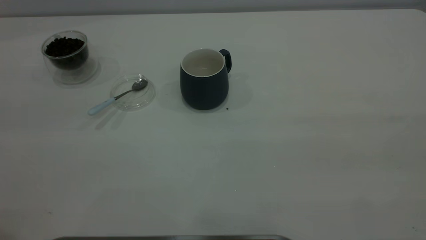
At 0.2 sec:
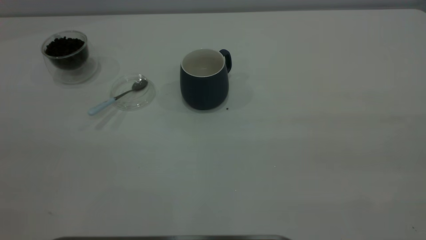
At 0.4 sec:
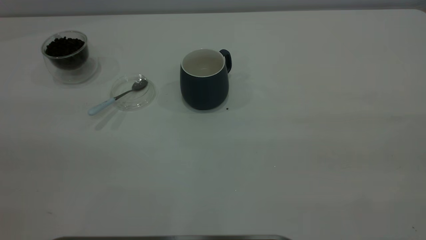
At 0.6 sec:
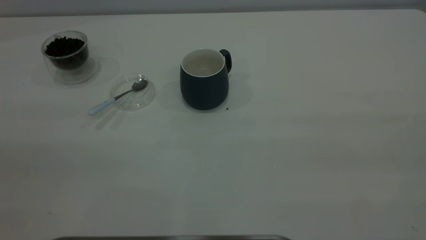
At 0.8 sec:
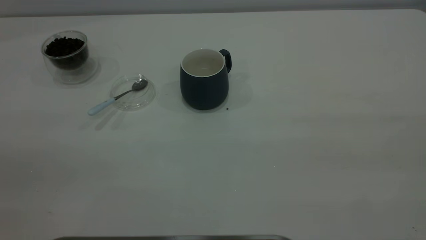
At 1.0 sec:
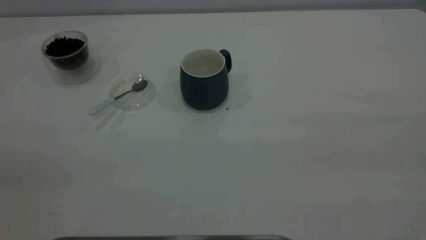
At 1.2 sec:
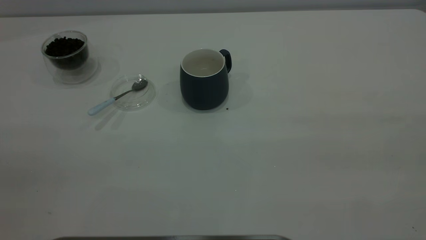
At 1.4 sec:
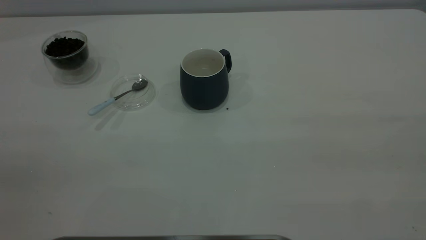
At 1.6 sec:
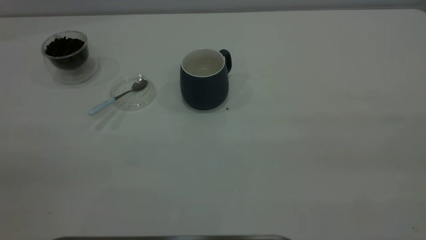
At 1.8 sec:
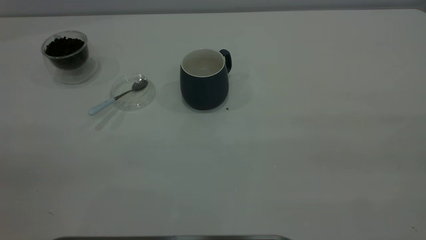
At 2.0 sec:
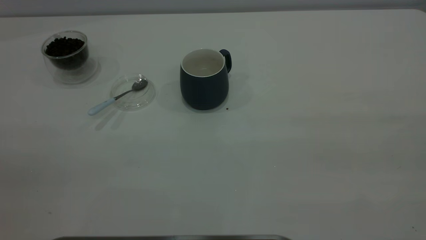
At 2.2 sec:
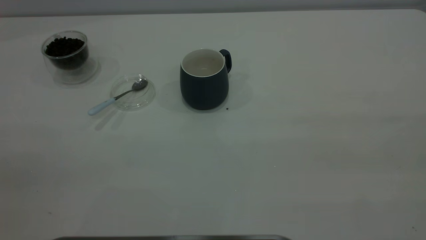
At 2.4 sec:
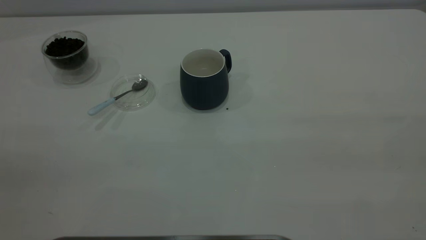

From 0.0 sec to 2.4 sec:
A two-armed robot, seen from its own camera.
Task of the whole recording: the right gripper place the grey cup in the center of the table, the left gripper take the blue spoon from the cup lid and scoop out the coffee beans from the coffee cup and put them into the grey cup, the left gripper put the spoon back into the cup lid.
From 1.2 sec to 2.4 sec: The two grippers keep their place.
